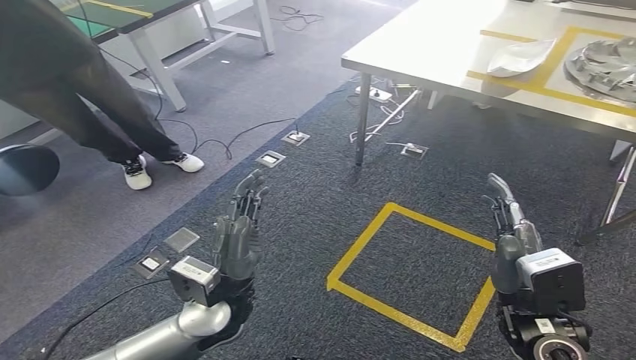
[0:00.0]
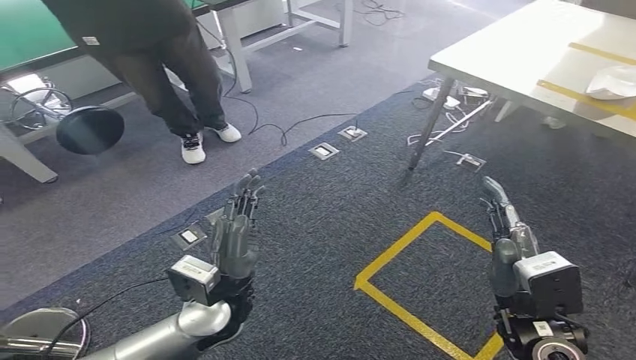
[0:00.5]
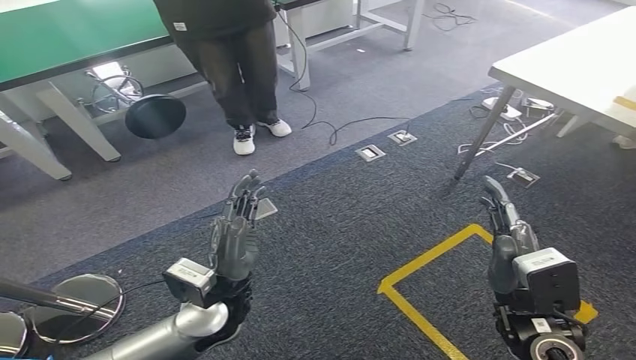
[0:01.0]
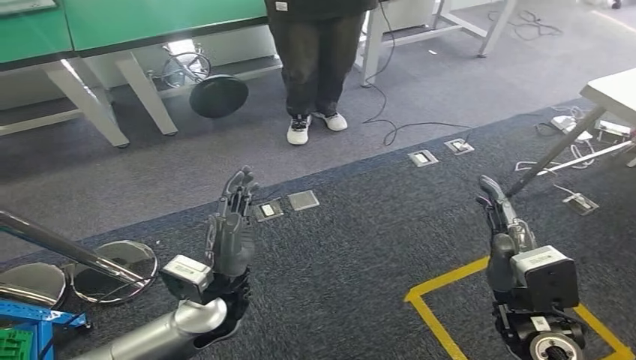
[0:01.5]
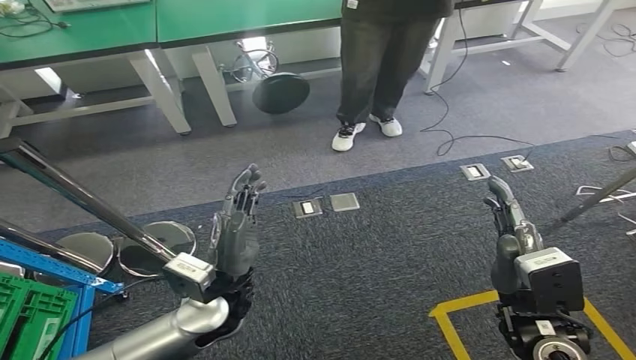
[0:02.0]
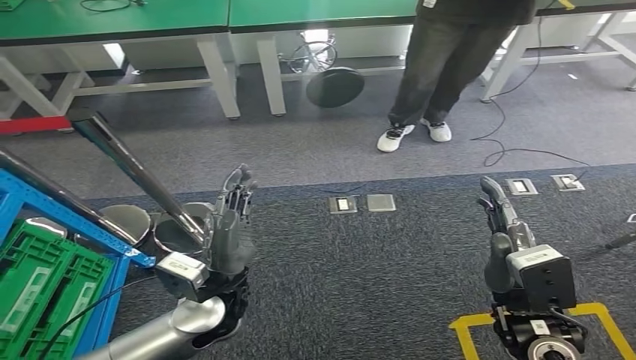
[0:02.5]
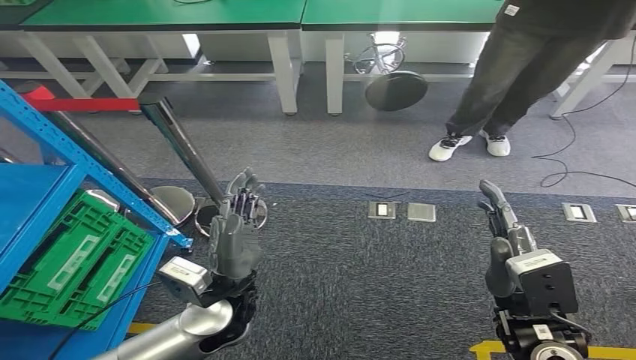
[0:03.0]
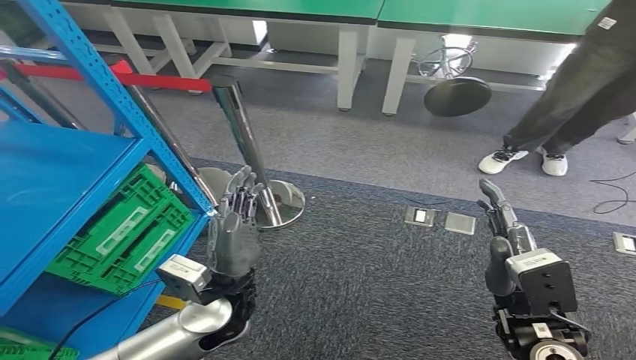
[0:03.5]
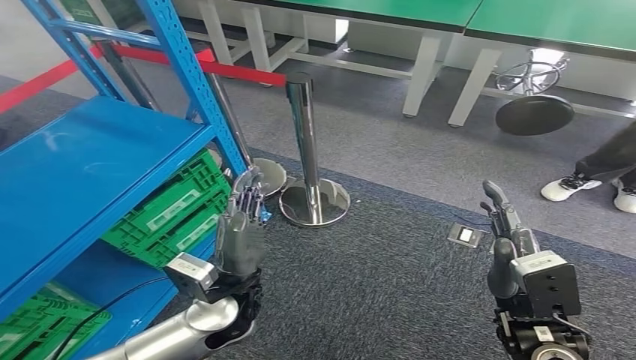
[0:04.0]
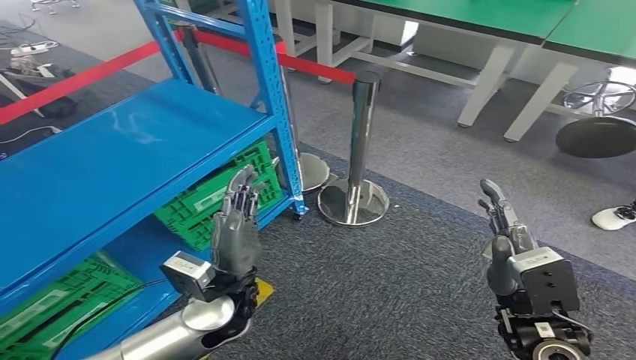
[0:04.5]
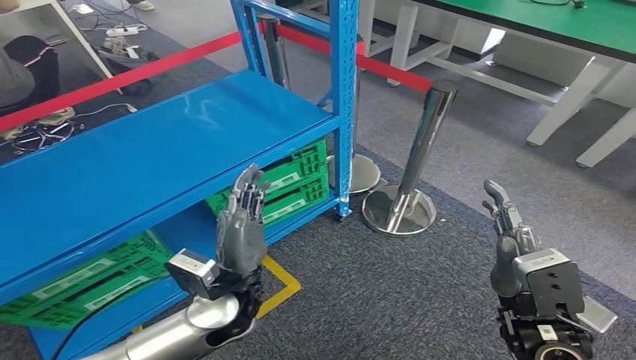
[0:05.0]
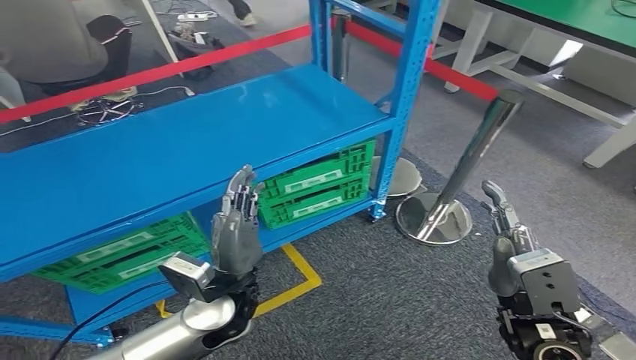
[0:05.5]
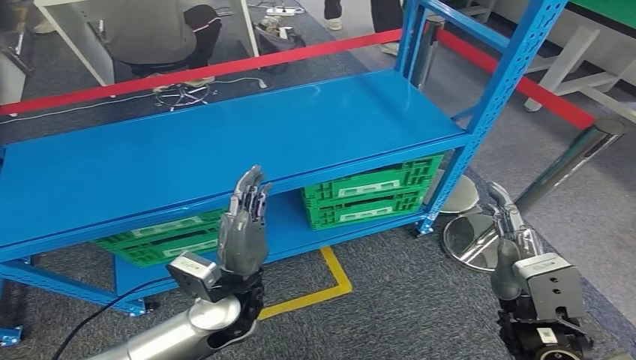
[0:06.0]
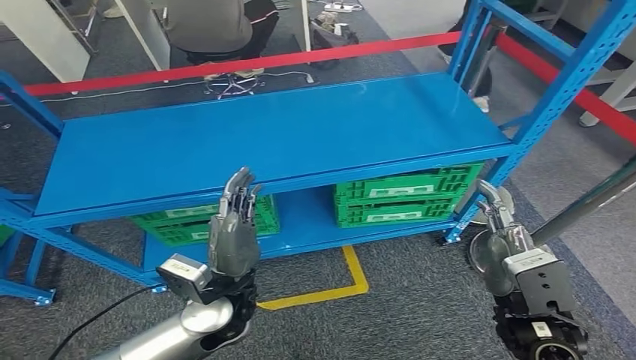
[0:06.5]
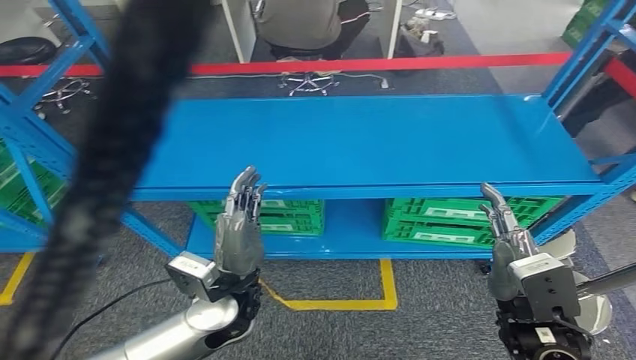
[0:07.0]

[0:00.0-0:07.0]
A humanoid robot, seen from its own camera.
Step, 0:00.0 to 0:07.0: Return to the initial position at the workbench.
